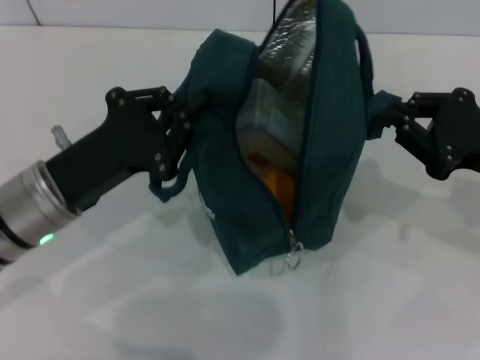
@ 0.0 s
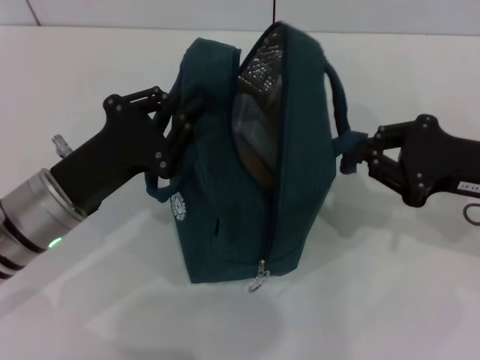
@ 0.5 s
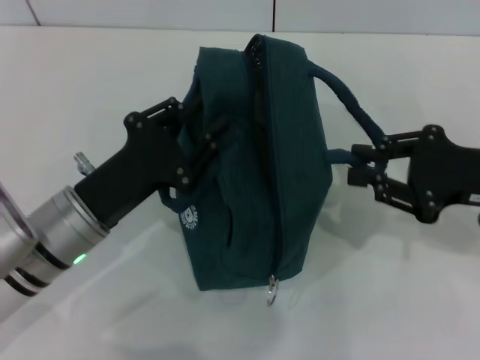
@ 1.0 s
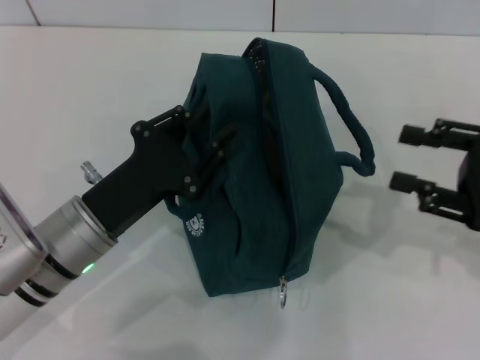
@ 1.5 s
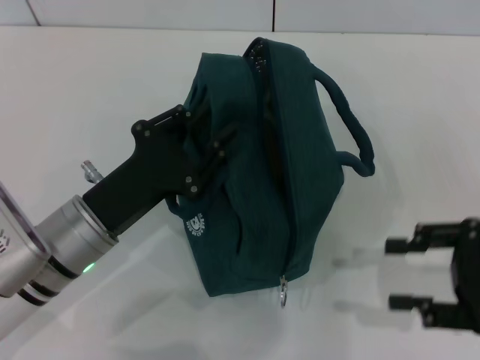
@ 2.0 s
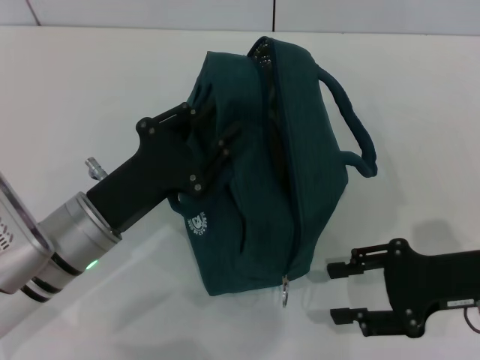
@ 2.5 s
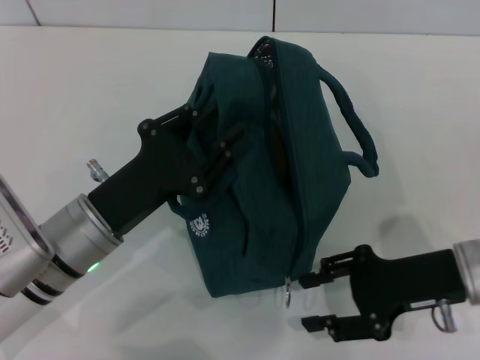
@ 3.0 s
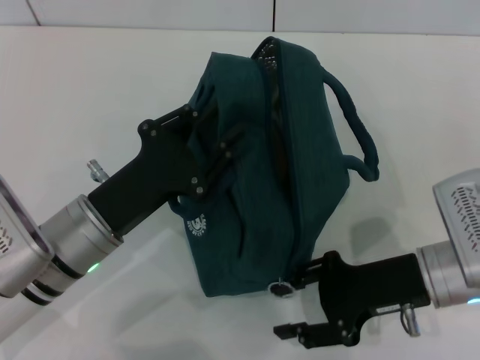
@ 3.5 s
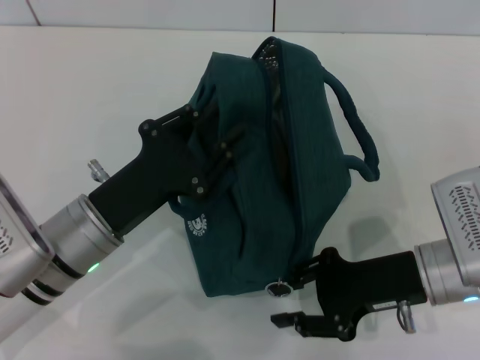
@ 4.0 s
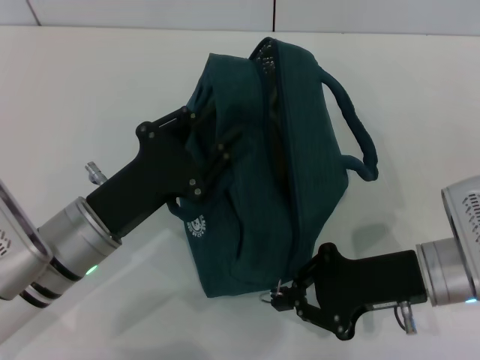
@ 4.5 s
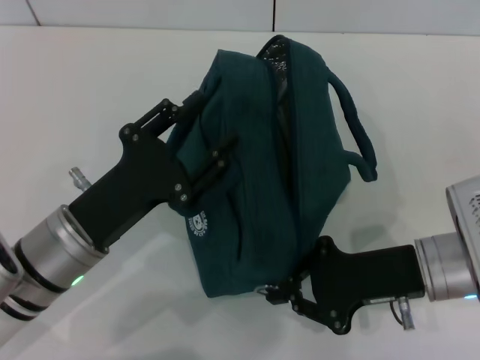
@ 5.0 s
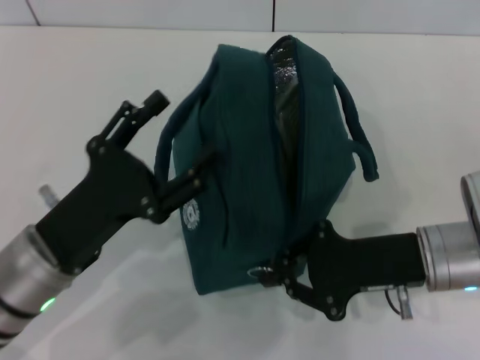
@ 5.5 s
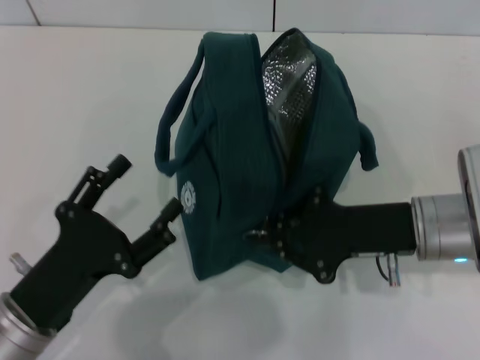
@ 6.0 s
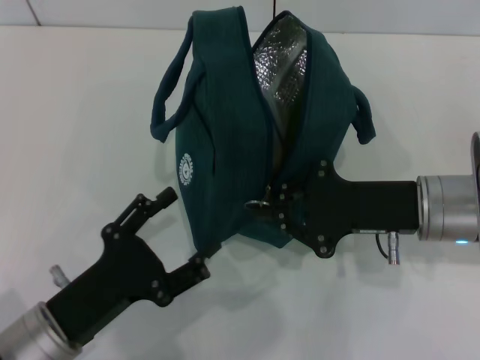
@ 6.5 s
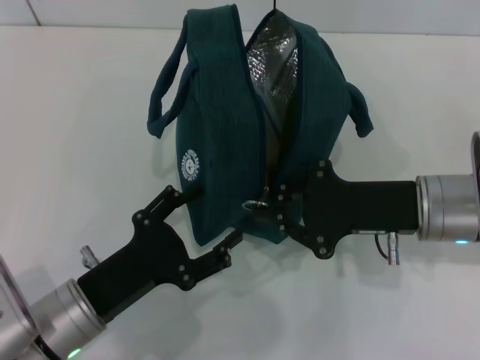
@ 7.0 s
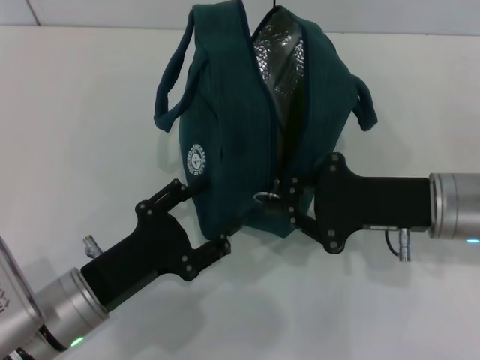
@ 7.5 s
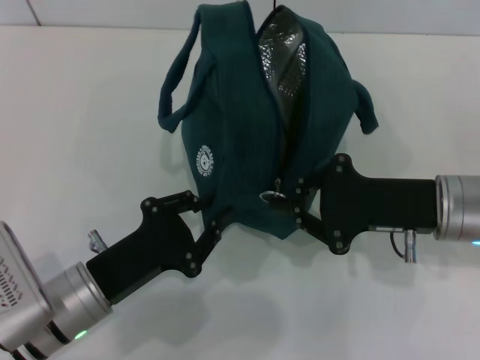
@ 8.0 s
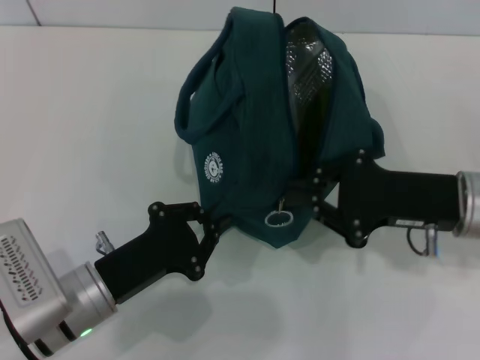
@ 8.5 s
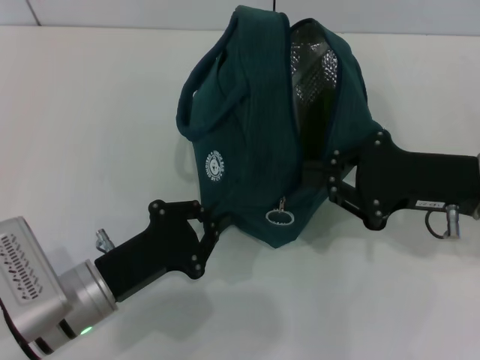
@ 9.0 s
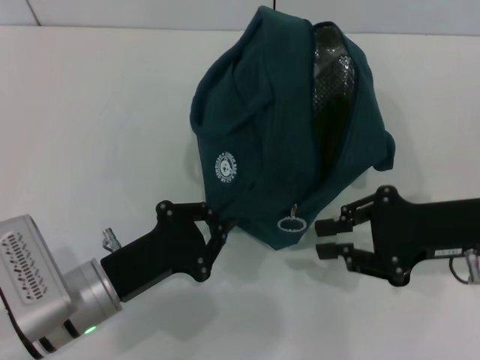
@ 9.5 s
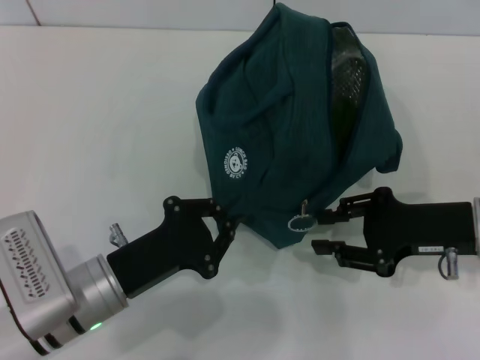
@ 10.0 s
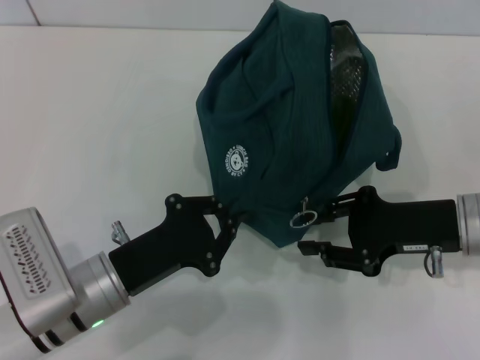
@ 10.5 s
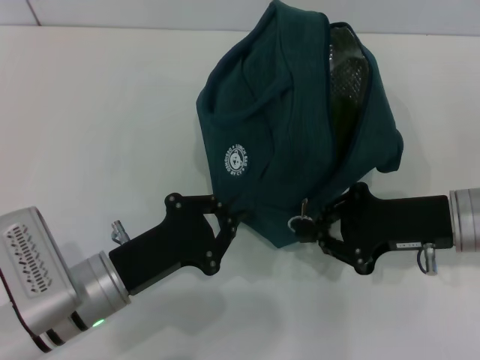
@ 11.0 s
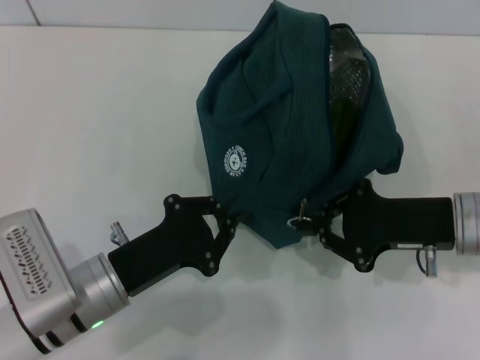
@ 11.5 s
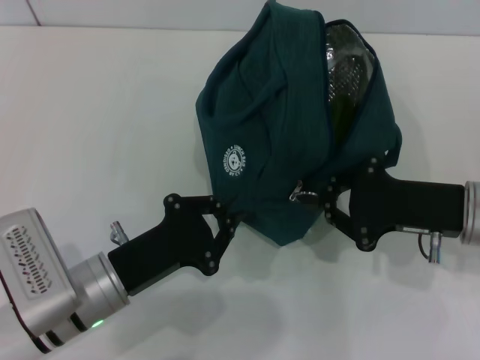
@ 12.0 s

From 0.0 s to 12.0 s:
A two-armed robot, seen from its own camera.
From 0.0 s to 2.0 s: The left gripper opens up; the right gripper goes about 5 cm backward, and opens.
From 2.0 s to 4.0 s: The right gripper is displaced to the left and downward by some 10 cm.
From 4.0 s to 6.0 s: The left gripper goes some 10 cm backward, and opens up, while the right gripper closes.
From 6.0 s to 8.0 s: The left gripper changes place by some 5 cm, and closes up.
From 8.0 s to 10.0 s: The left gripper closes up.
From 10.0 s to 12.0 s: The right gripper closes up.

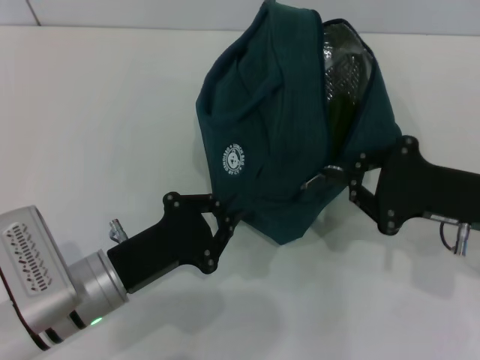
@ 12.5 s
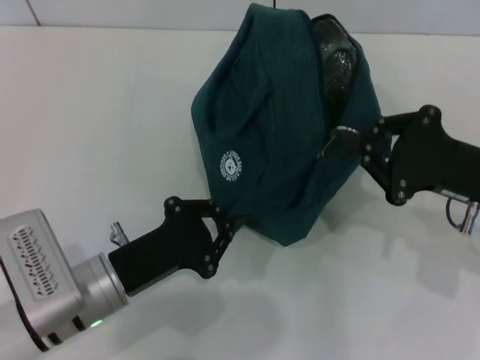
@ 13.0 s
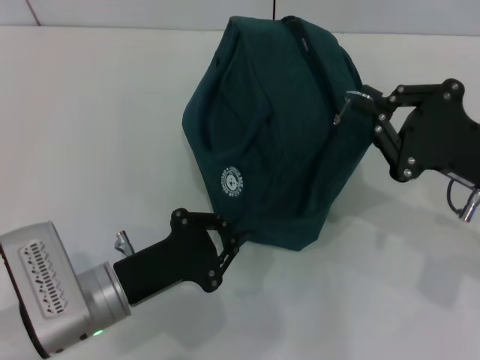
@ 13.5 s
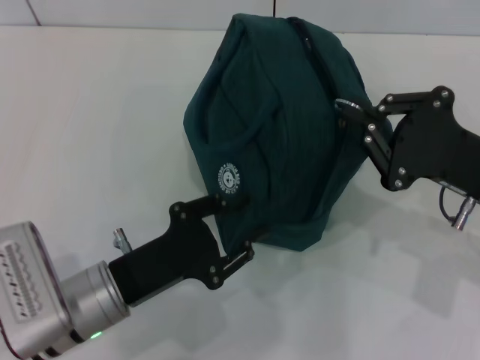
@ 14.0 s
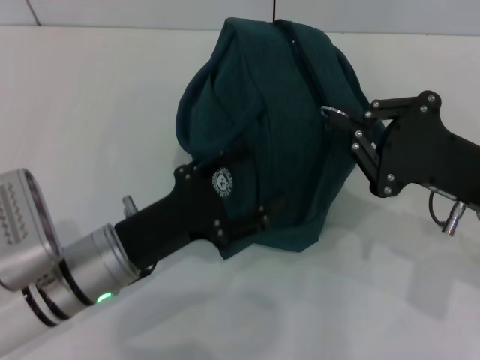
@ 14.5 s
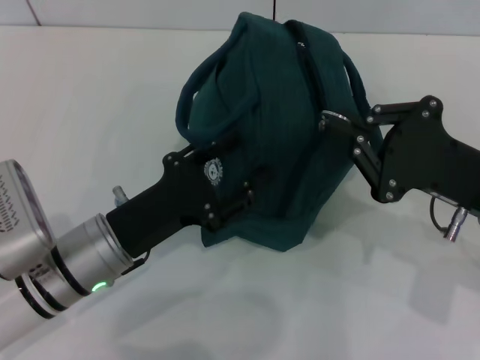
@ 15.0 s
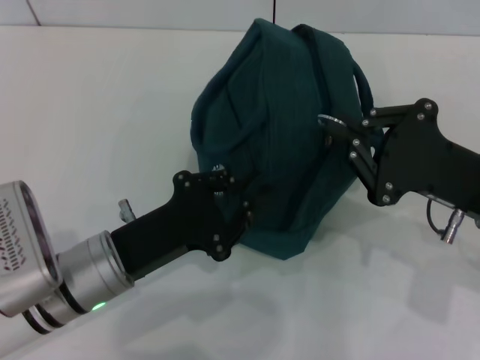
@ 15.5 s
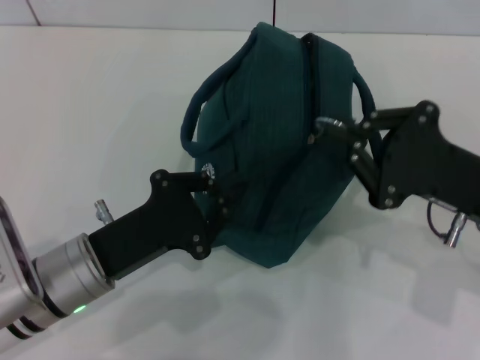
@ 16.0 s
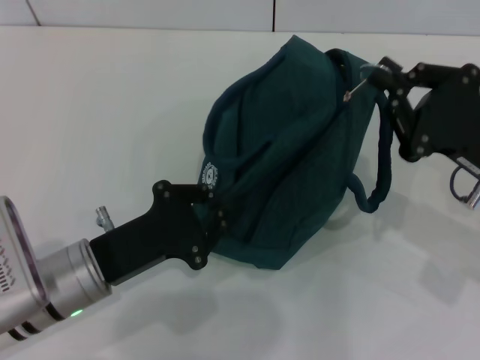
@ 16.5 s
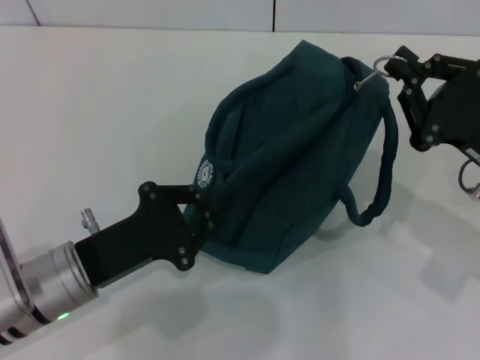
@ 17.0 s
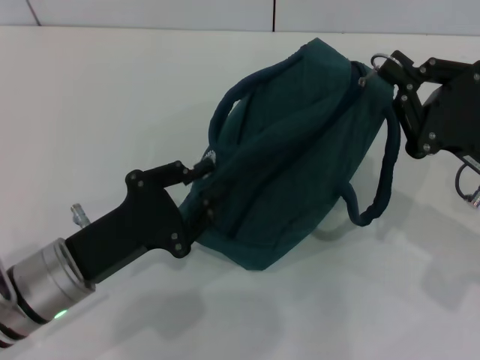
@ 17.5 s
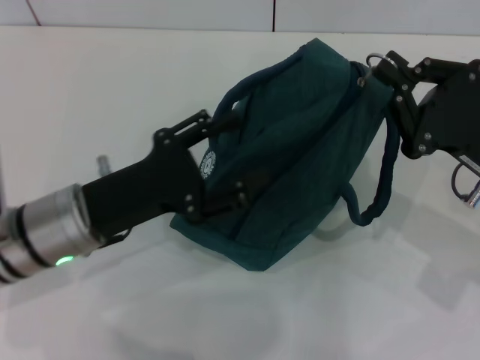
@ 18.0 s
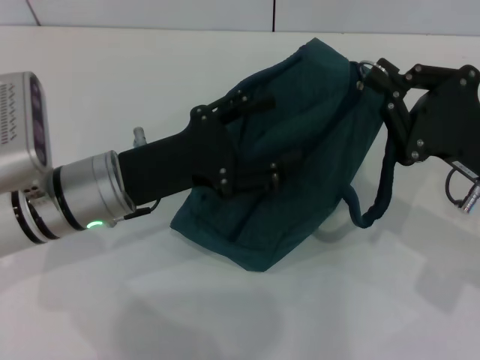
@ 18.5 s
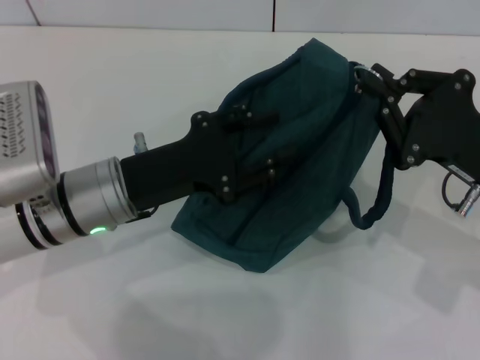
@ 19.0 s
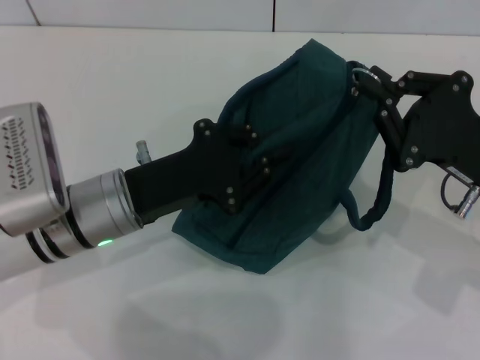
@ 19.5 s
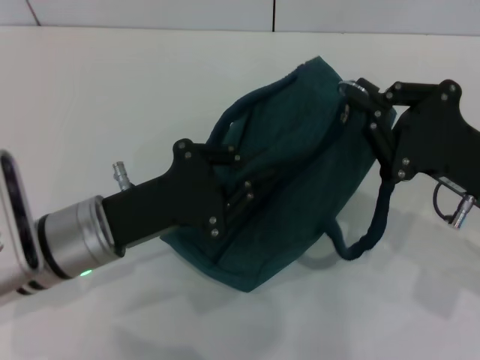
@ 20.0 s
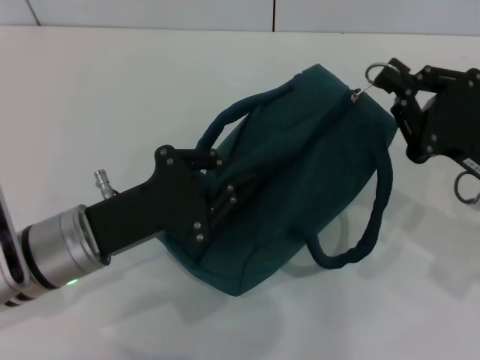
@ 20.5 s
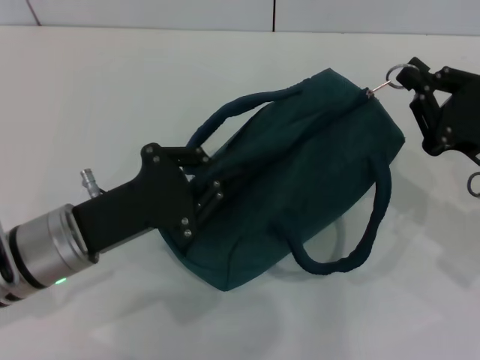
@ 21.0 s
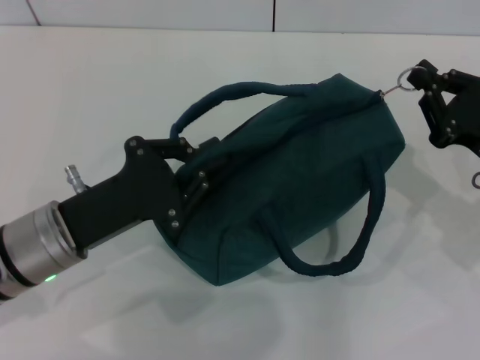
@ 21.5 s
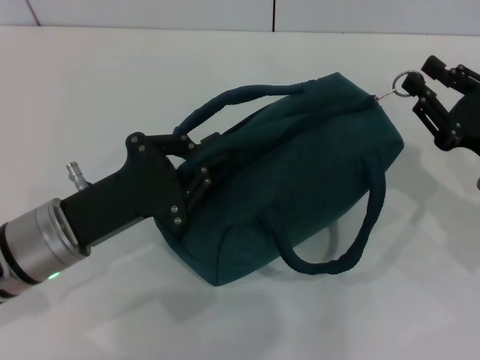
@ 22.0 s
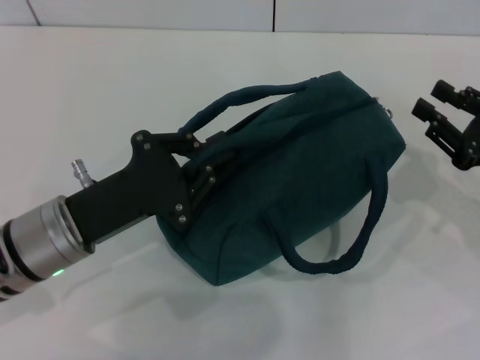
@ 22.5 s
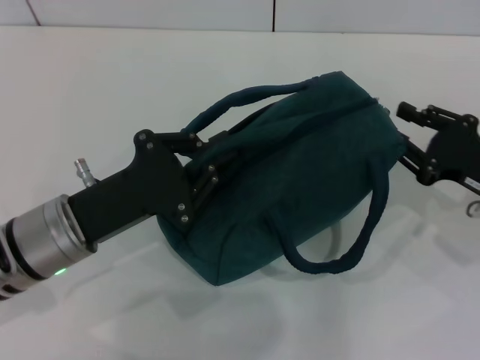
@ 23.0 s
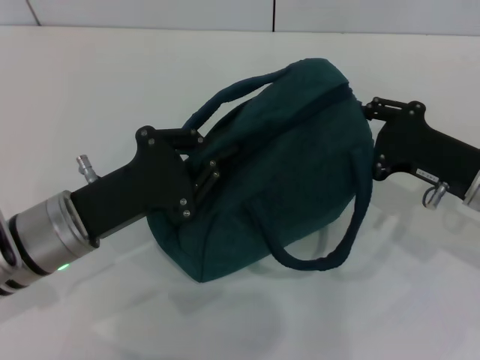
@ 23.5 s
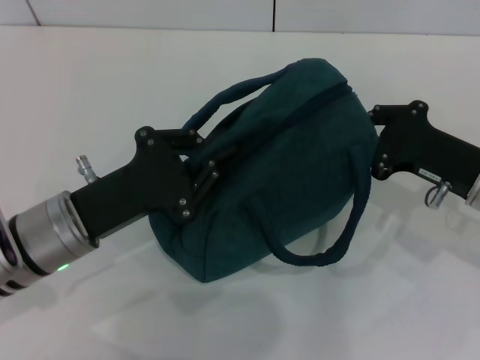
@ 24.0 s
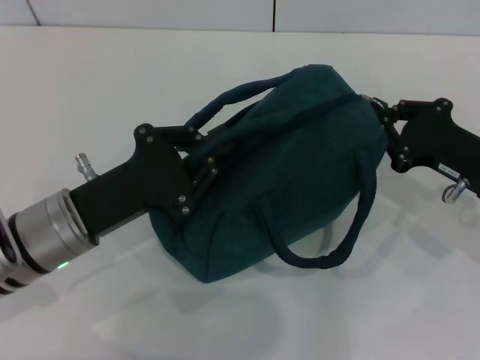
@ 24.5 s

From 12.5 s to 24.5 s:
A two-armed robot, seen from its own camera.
From 12.5 s to 14.5 s: The left gripper opens its fingers.
From 14.5 s to 16.5 s: The left gripper closes.
From 16.5 s to 18.5 s: The left gripper travels forward and upward by roughly 10 cm, and opens.
From 18.5 s to 20.5 s: The left gripper moves approximately 5 cm, and closes up.
From 20.5 s to 22.5 s: The right gripper travels to the right by approximately 5 cm, and opens its fingers.
From 22.5 s to 24.5 s: The right gripper moves about 5 cm, and closes its fingers.

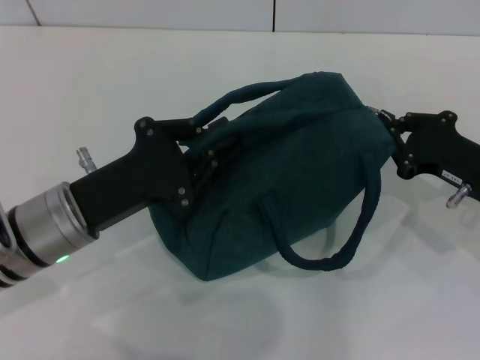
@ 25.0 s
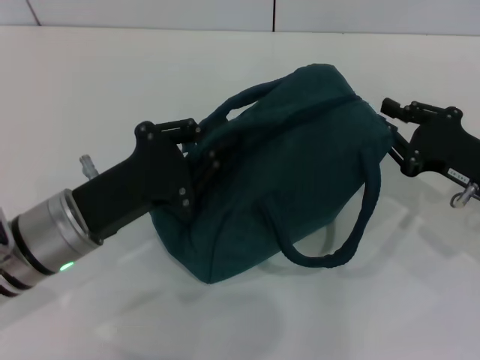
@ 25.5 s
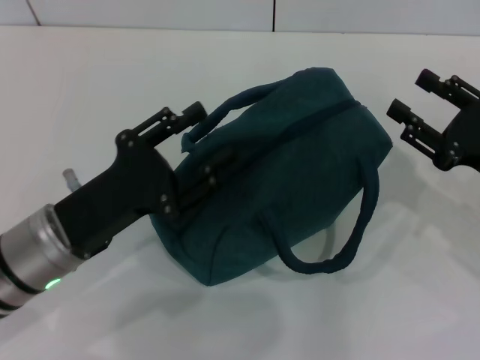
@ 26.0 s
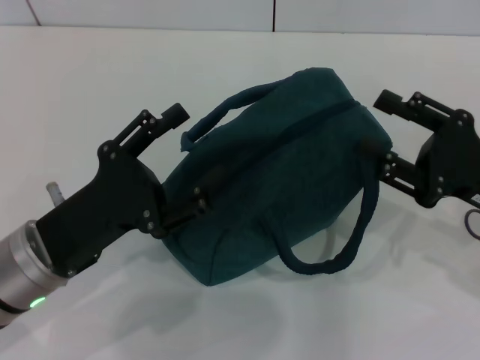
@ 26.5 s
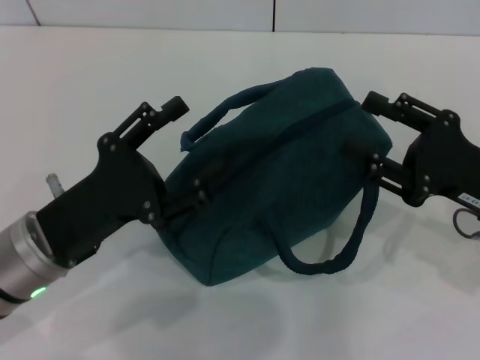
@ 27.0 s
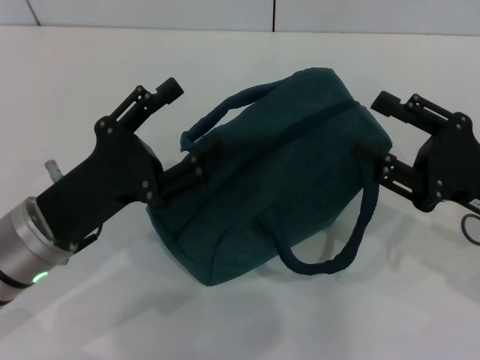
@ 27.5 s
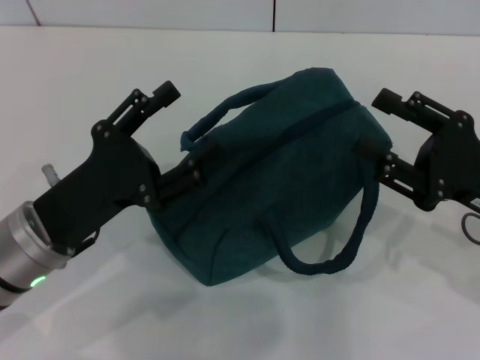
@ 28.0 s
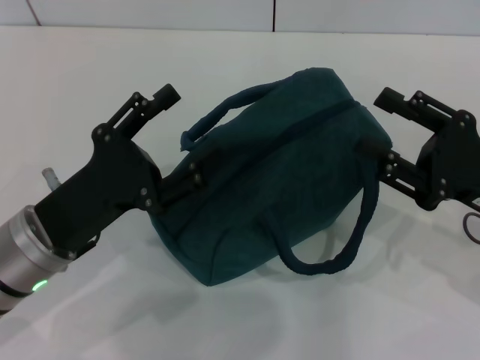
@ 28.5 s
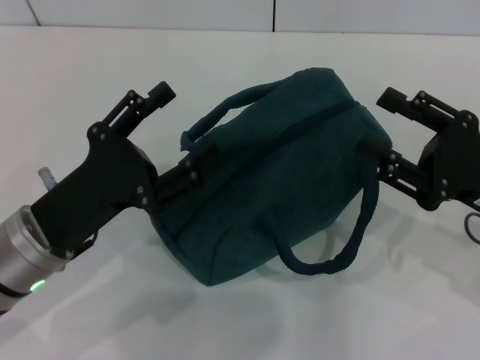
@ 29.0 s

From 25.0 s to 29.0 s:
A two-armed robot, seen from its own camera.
From 25.0 s to 27.0 s: The right gripper shifts by approximately 5 cm, and opens. The left gripper opens its fingers.
From 27.0 s to 29.0 s: Both grippers stay about where they are.
